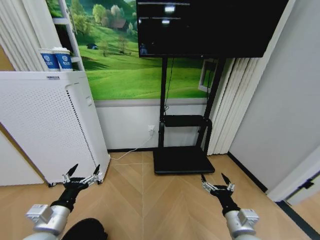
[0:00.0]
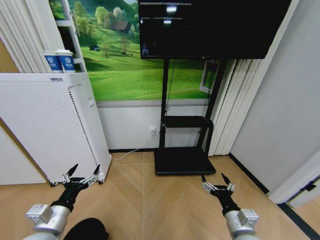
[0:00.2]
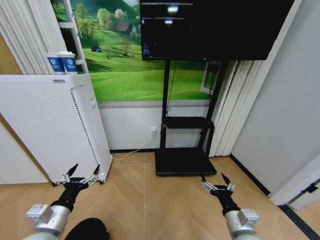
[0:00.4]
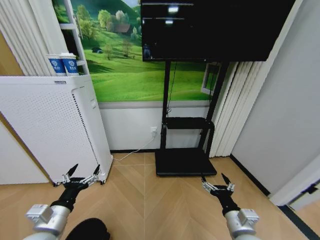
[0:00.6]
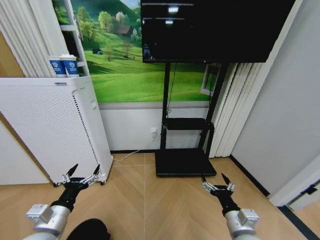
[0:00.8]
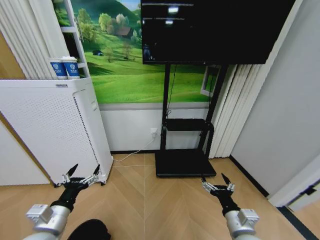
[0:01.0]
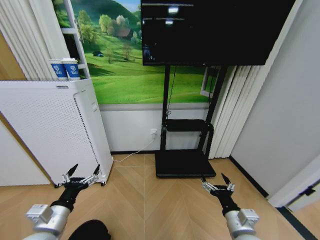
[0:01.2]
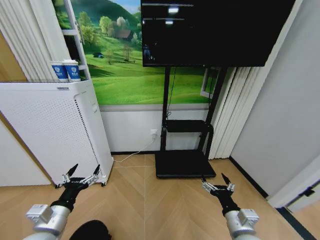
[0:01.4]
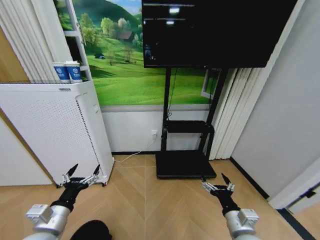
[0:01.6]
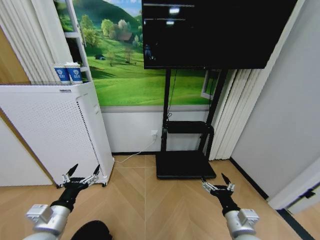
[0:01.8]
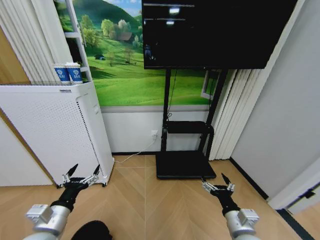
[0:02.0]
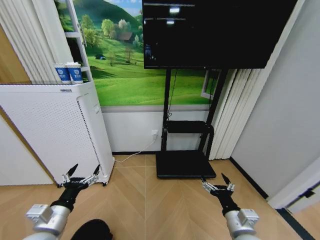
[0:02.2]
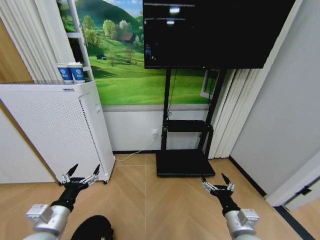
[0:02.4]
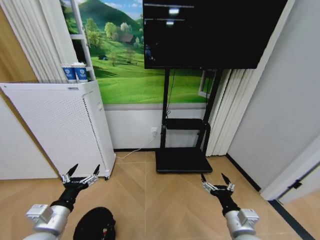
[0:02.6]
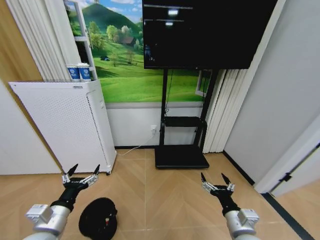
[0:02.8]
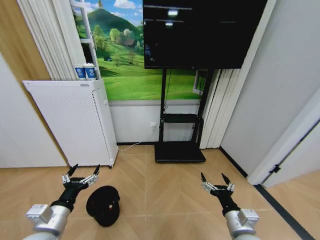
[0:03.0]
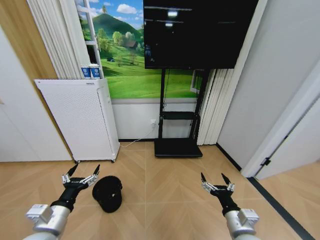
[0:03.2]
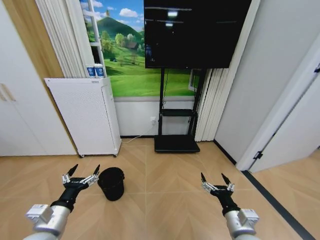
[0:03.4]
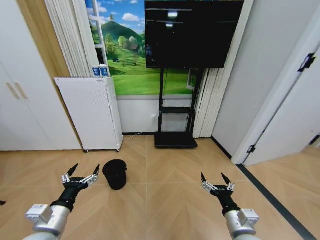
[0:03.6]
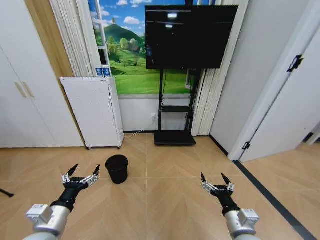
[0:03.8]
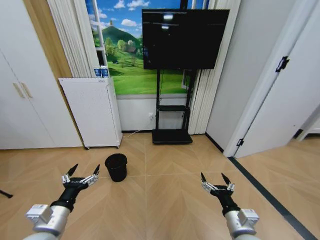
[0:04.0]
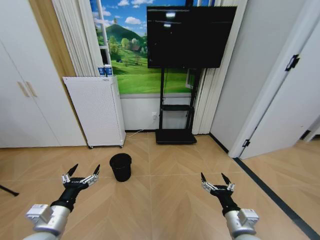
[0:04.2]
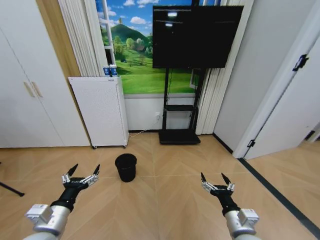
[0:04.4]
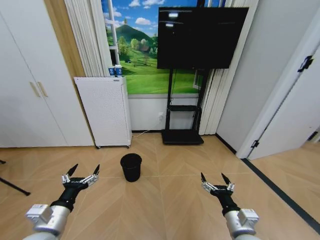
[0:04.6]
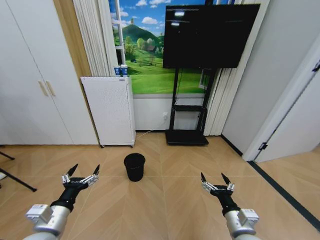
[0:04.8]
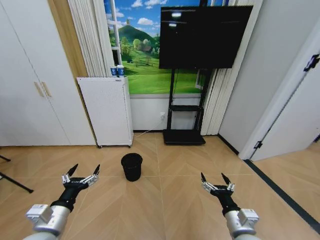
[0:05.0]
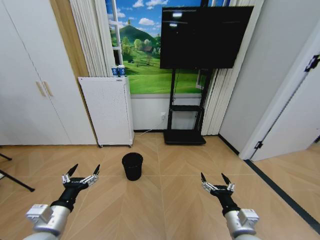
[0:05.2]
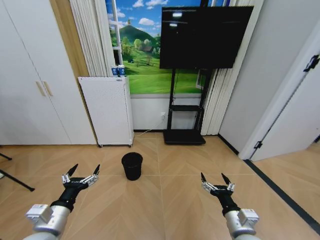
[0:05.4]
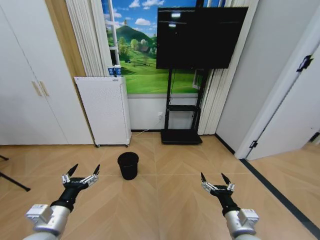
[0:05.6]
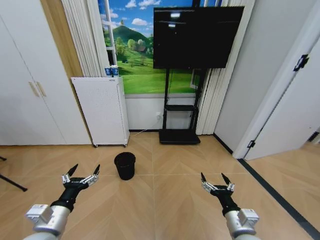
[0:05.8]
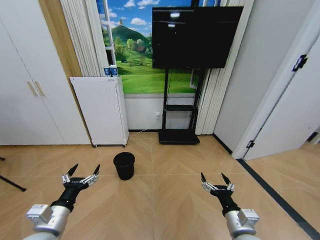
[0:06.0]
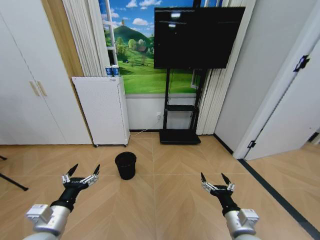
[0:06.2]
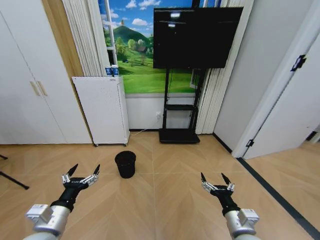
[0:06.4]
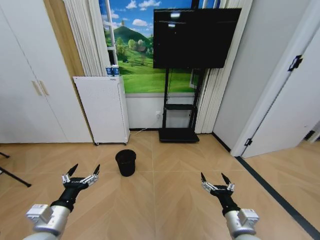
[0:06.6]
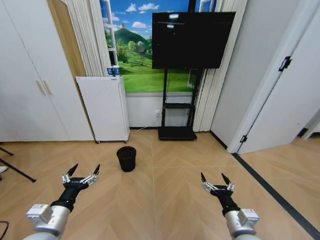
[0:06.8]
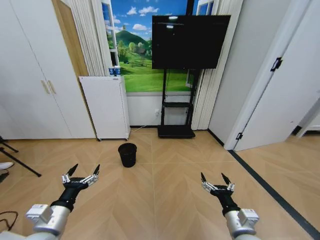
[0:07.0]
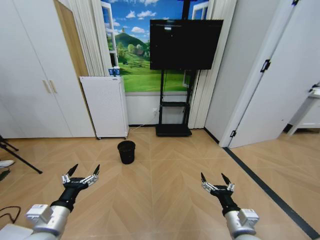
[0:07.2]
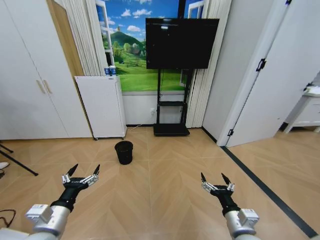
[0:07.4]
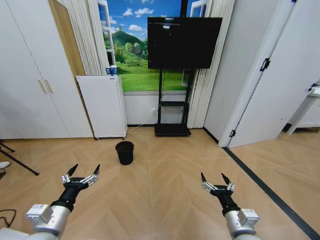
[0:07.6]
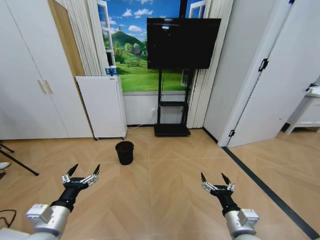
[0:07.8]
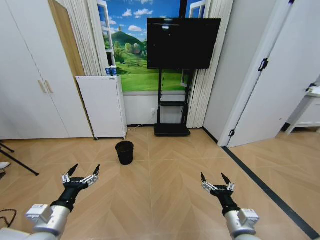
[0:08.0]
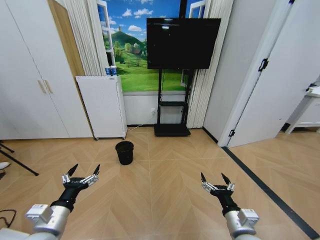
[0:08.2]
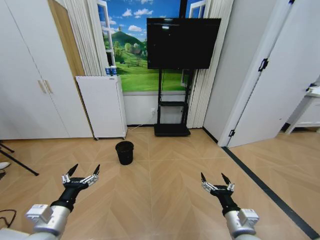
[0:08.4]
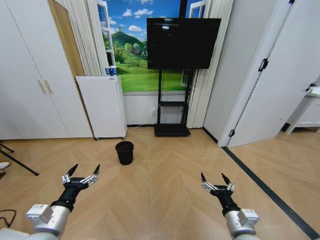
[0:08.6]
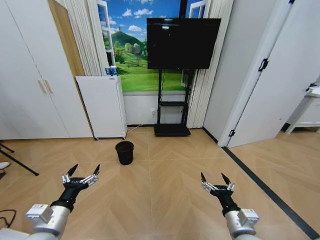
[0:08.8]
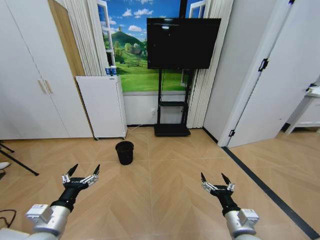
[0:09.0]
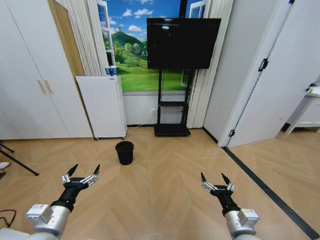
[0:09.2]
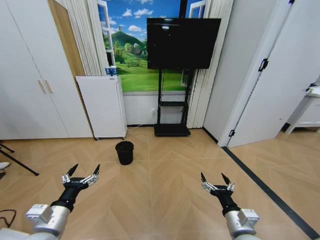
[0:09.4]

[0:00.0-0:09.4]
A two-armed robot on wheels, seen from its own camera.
Task of the whole recording: Pick up the trash bin and place the garbage on the floor into it.
0:07.8 to 0:09.4: Both grippers stay about where they are.

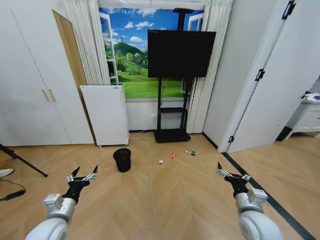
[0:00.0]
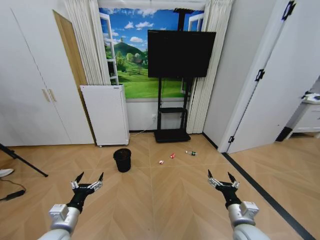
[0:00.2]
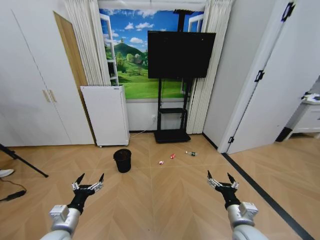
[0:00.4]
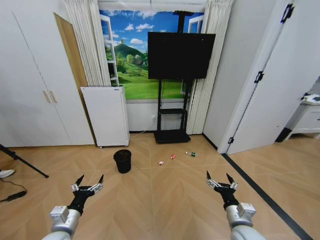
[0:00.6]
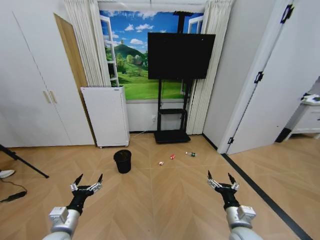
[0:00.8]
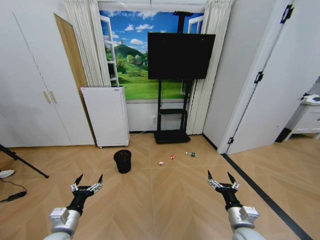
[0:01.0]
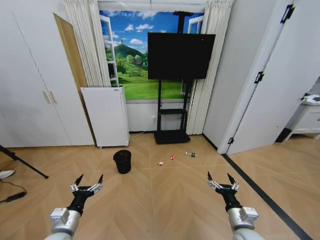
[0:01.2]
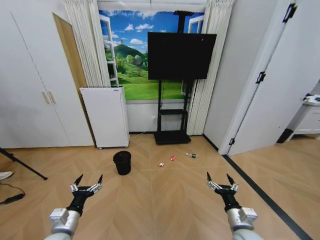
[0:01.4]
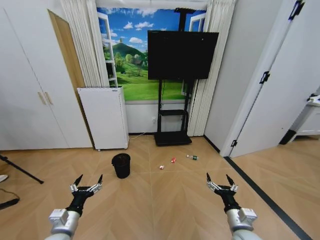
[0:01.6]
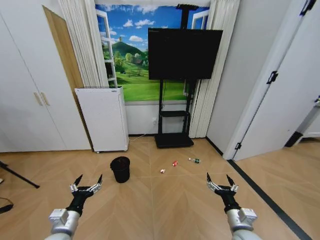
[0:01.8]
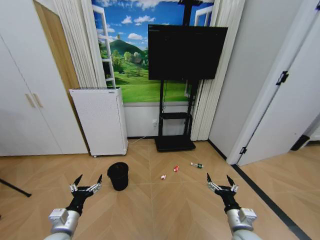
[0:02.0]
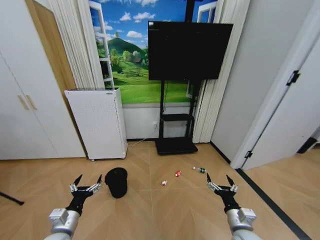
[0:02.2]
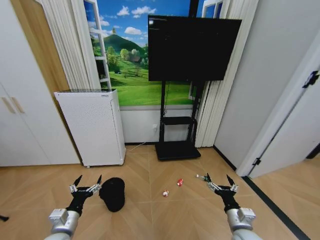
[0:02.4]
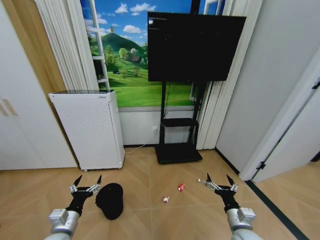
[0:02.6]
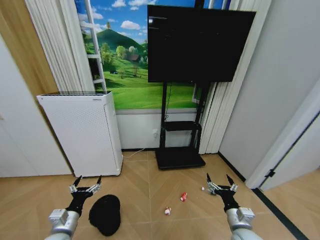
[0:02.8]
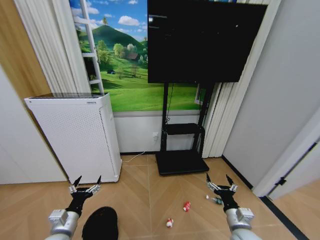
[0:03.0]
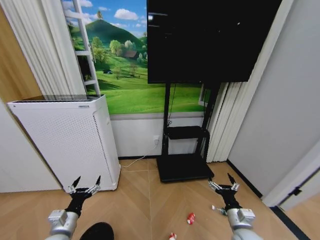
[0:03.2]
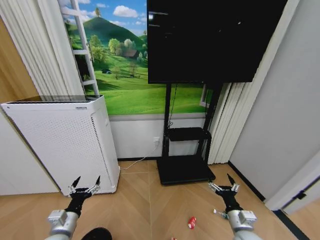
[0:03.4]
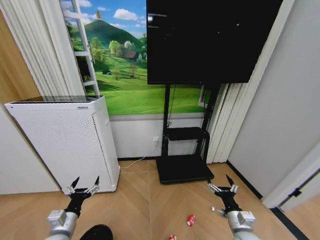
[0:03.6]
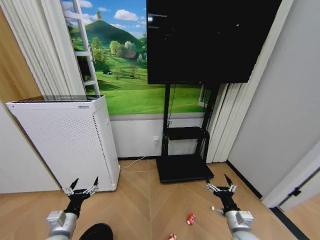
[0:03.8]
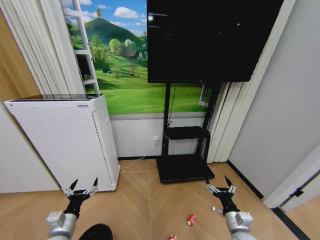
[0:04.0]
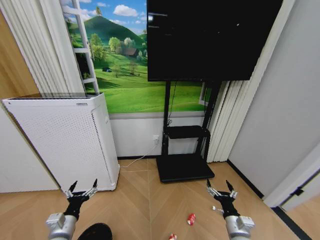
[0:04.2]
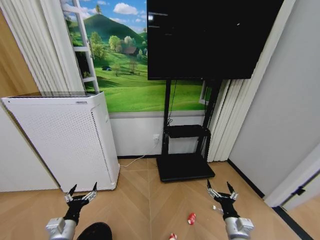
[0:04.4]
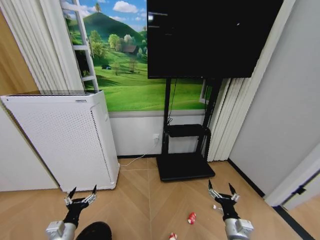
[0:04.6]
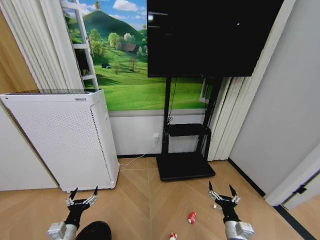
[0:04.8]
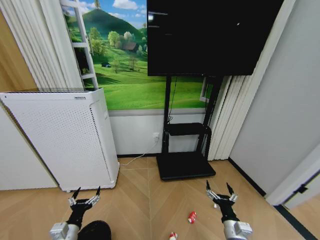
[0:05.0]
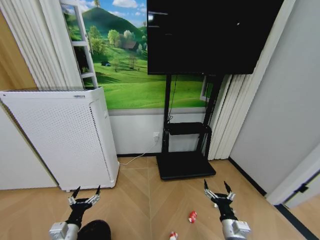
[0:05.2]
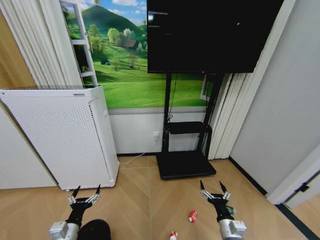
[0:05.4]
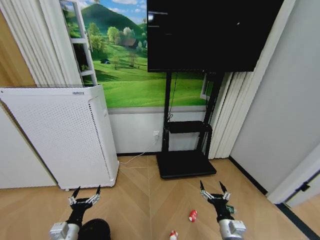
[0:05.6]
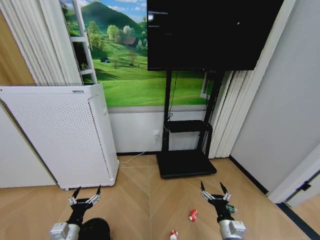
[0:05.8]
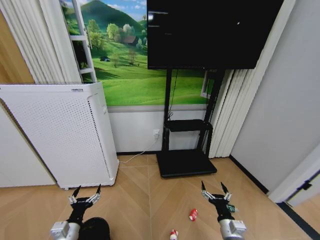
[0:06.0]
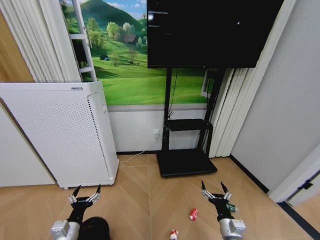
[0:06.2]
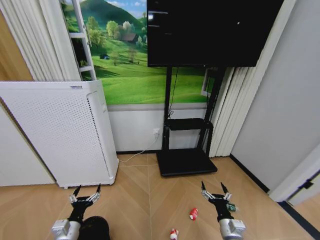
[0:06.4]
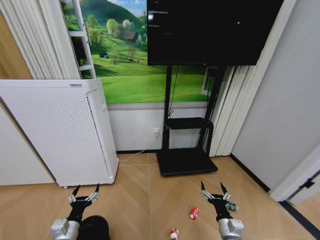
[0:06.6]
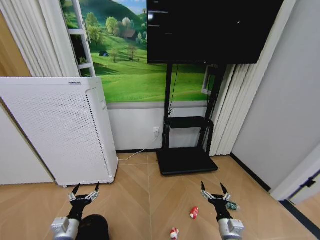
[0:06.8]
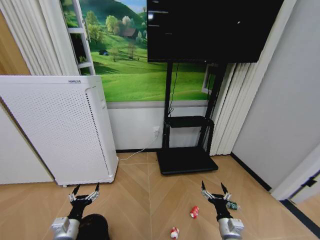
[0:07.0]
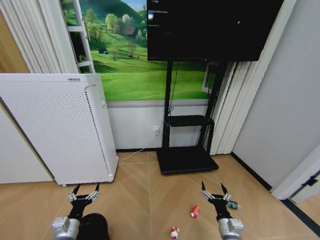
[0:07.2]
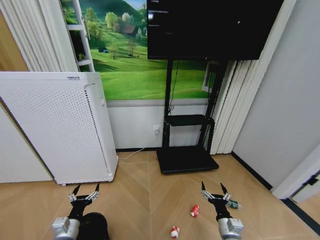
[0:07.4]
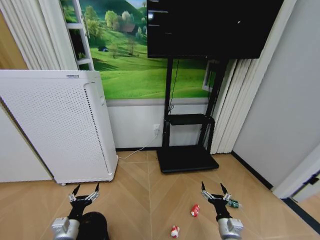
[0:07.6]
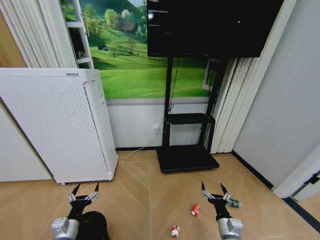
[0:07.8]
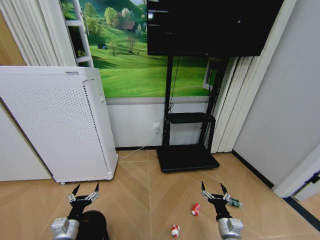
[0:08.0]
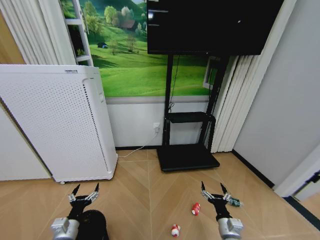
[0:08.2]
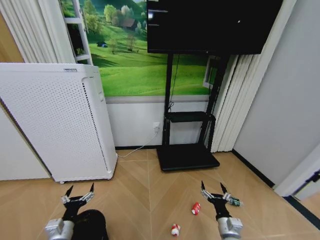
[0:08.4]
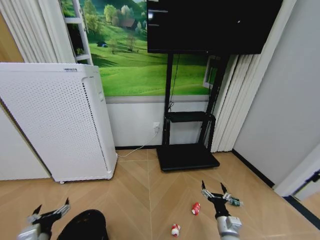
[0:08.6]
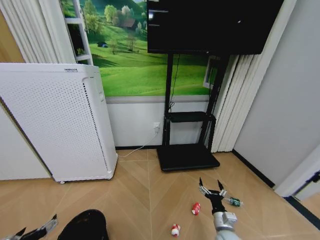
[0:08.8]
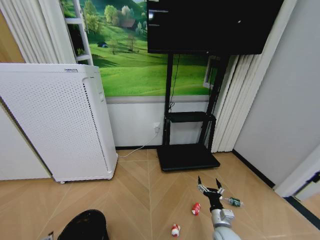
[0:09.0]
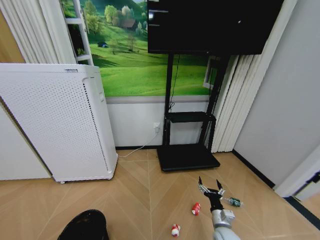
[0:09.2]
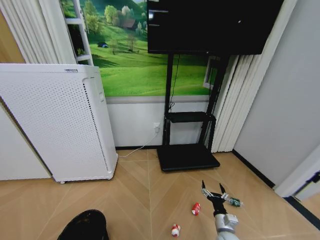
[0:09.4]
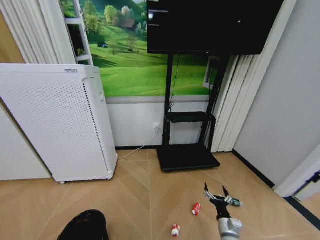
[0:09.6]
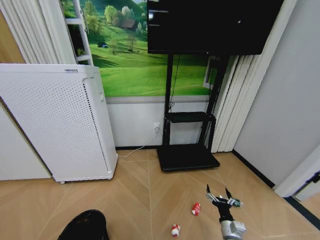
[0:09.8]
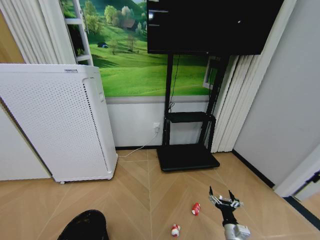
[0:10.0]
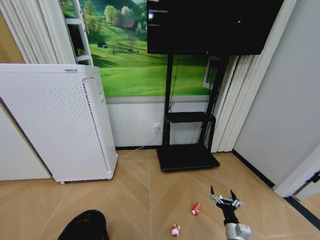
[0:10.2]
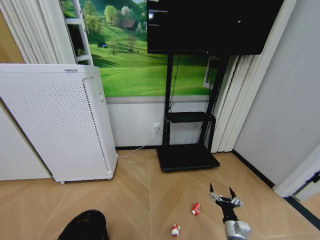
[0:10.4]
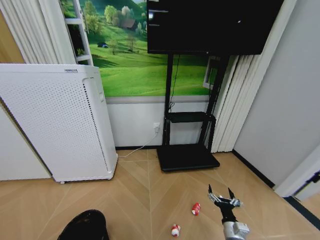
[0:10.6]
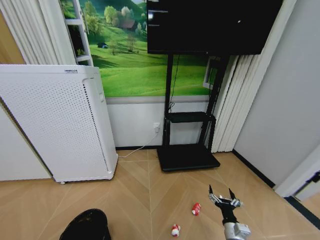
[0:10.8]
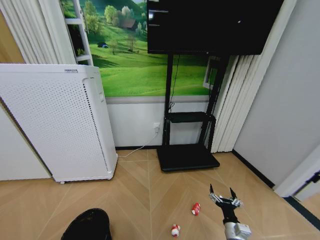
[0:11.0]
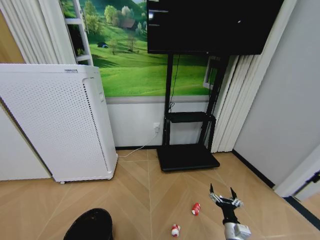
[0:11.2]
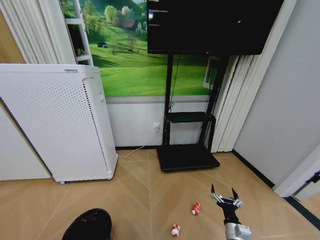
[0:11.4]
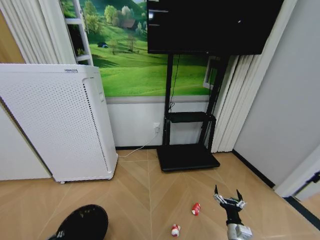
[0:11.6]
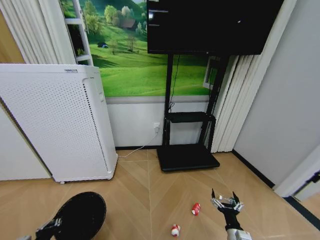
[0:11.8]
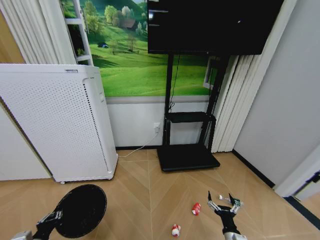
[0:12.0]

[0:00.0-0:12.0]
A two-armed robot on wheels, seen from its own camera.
Task of the whole recording: Pick up the trash bin and place the garbage on the floor into it.
0:04.4 to 0:07.6: There are only small adjustments of the grippers.
0:07.6 to 0:09.0: The left gripper is displaced upward, backward and to the left by approximately 15 cm.
0:09.0 to 0:10.4: The right gripper shifts by roughly 5 cm.
0:10.4 to 0:12.0: The left gripper closes up.

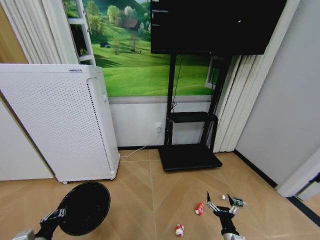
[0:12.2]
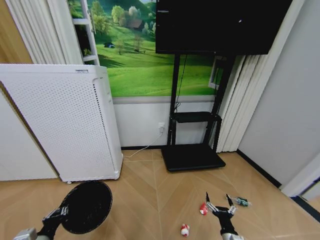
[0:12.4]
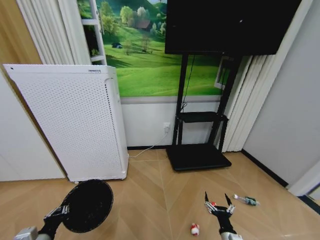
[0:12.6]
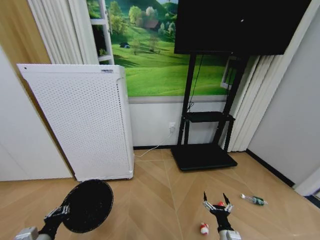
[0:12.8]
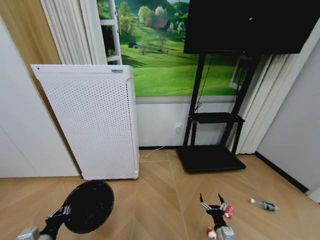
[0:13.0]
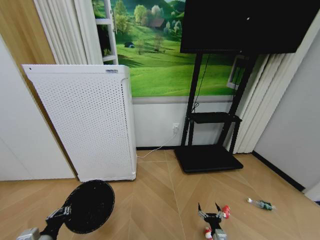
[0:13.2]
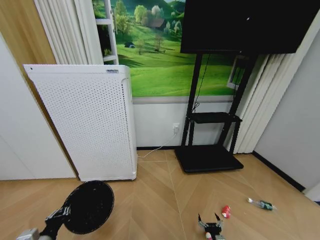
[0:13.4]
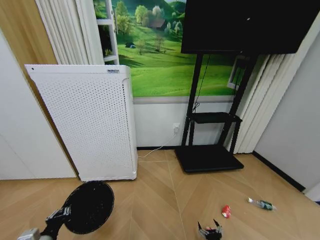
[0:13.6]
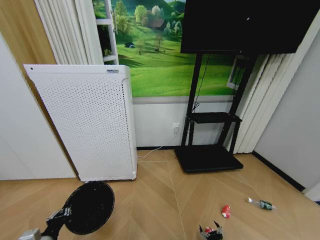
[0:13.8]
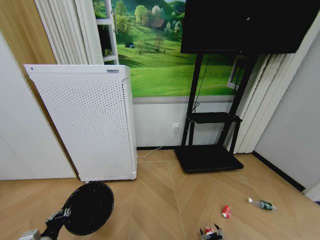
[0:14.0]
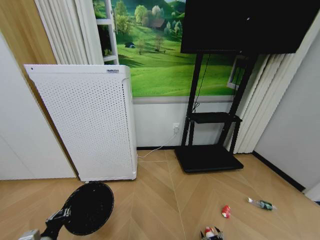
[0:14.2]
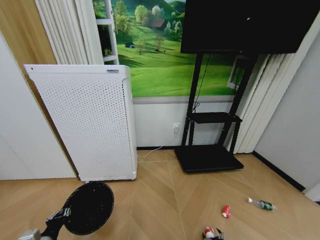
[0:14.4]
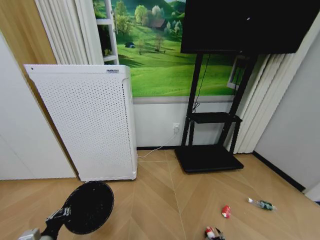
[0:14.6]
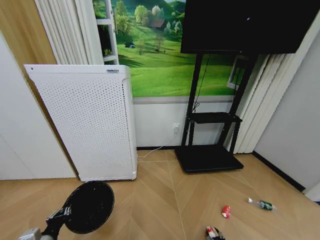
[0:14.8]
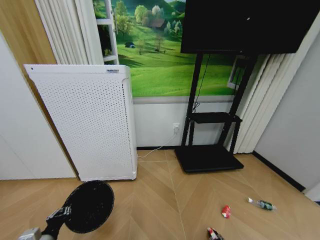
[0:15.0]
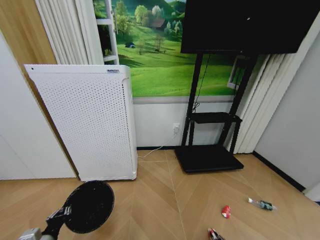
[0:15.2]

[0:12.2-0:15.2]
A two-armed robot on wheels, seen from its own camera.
Task of the whole recording: Pick up the trash bin and place the garbage on the floor into it.
0:12.2 to 0:13.8: The right gripper travels downward by approximately 15 cm.
